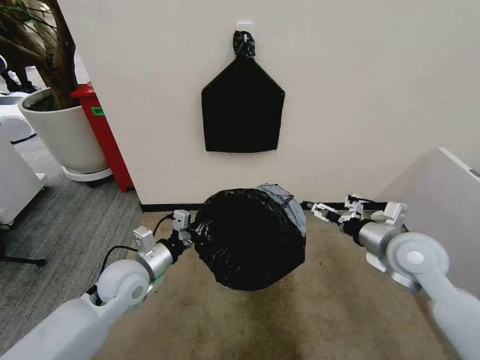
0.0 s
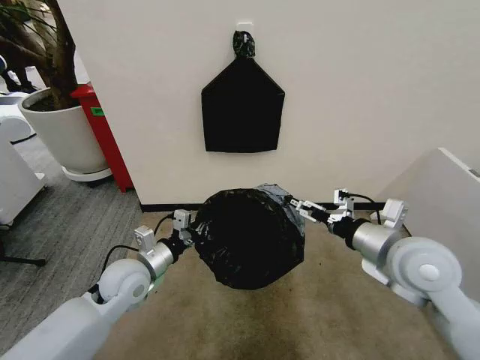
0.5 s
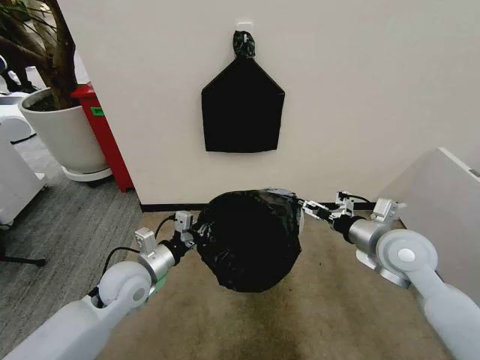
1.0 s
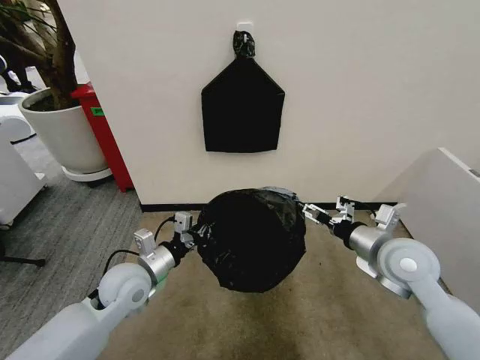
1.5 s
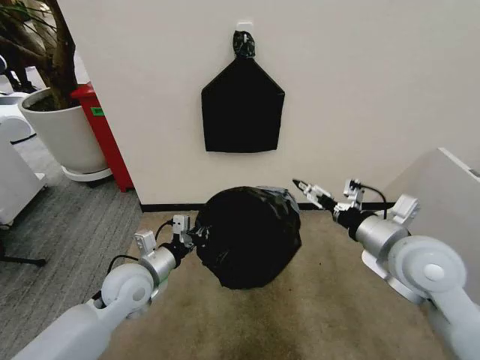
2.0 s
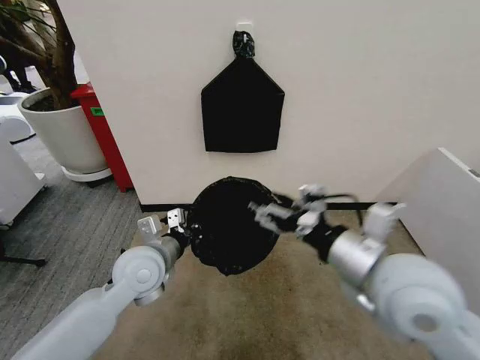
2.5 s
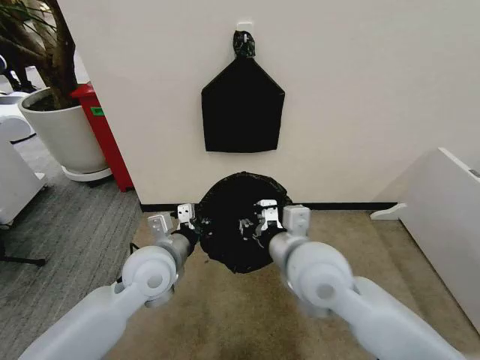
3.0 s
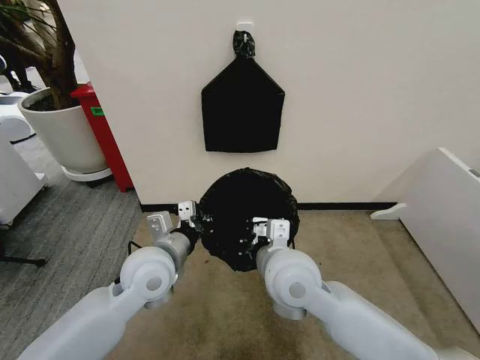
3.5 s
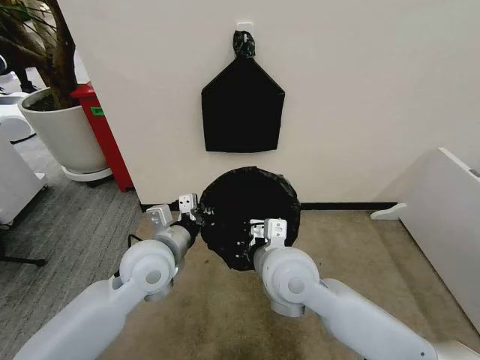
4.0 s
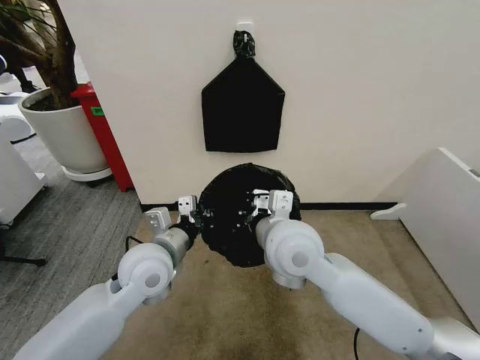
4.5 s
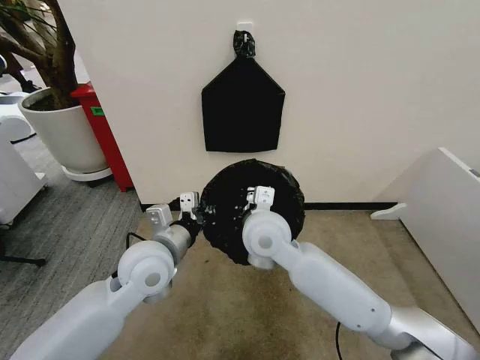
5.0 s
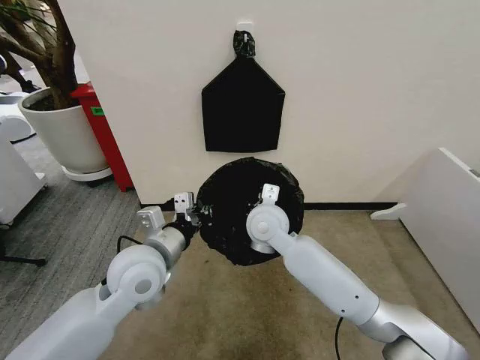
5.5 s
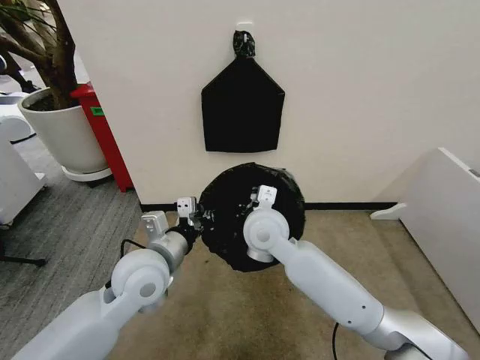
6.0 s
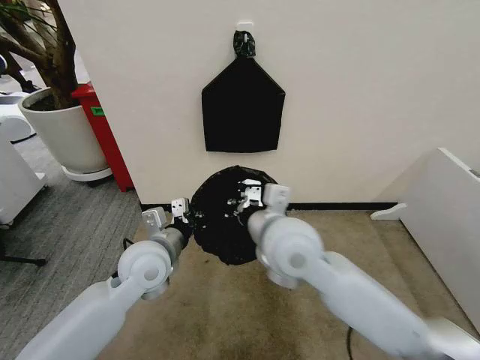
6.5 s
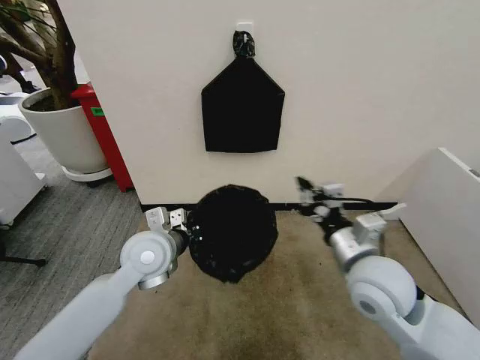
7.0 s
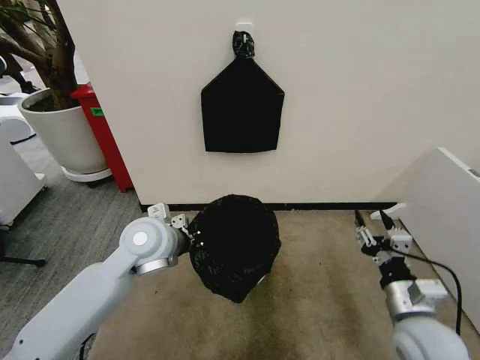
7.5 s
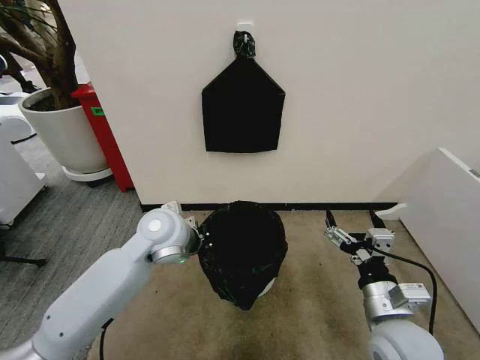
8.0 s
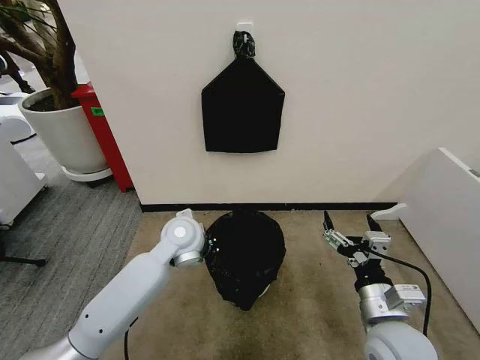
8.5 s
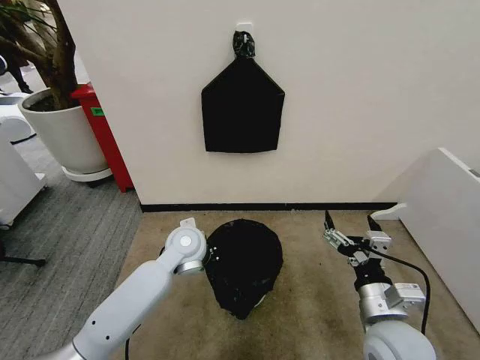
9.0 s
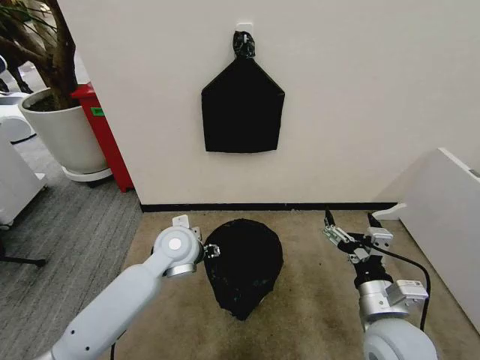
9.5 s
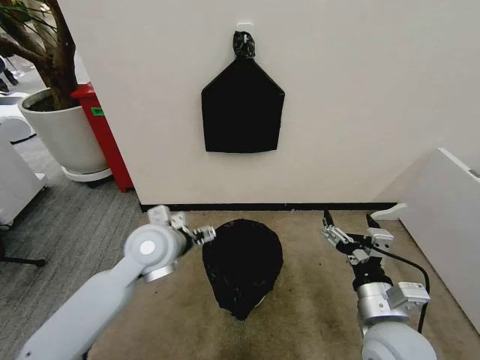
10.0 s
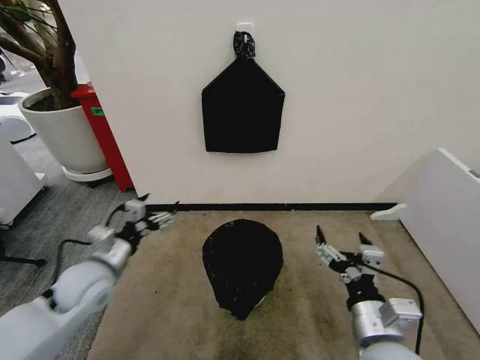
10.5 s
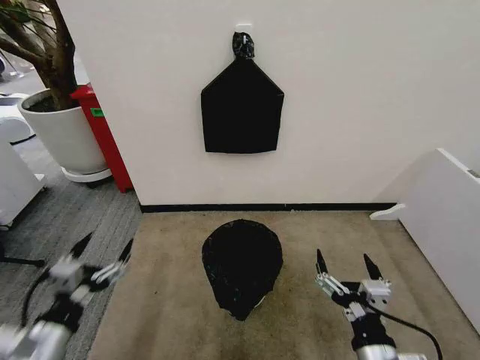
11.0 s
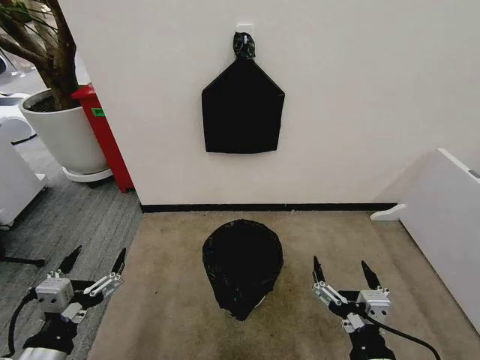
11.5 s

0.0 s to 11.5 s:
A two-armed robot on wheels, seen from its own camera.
Task of the whole recording: Place the garbage bag over the trash bin.
0.0 to 2.0 s: The right gripper goes up and down, approximately 5 cm each way, reversing 2 times.
2.0 to 4.0 s: The right gripper goes roughly 20 cm to the left, and closes up, while the left gripper travels upward and to the right by some 10 cm.
4.0 to 6.0 s: The right gripper moves forward, about 10 cm.
6.0 to 7.5 s: The right gripper is displaced to the right and backward by some 35 cm, and opens up. Meanwhile the left gripper shifts approximately 5 cm forward.
7.5 to 9.5 s: The right gripper moves to the left, approximately 5 cm, and opens its fingers, while the left gripper is displaced downward by roughly 5 cm, and opens up.
9.5 to 11.5 s: The right gripper goes roughly 10 cm backward. Meanwhile the left gripper goes roughly 35 cm backward and to the left.

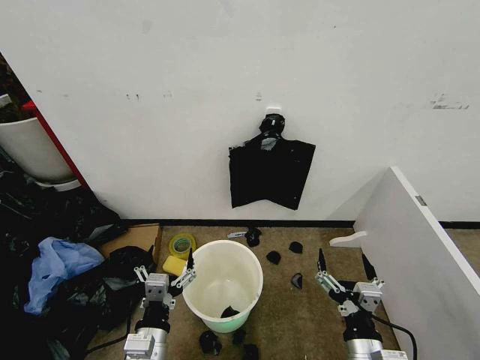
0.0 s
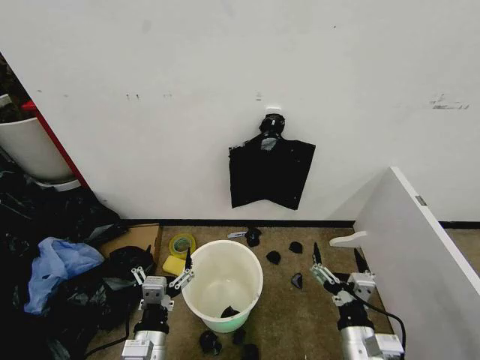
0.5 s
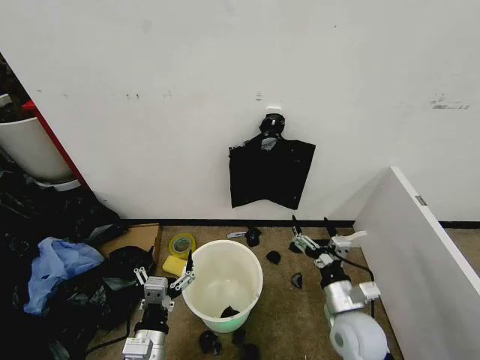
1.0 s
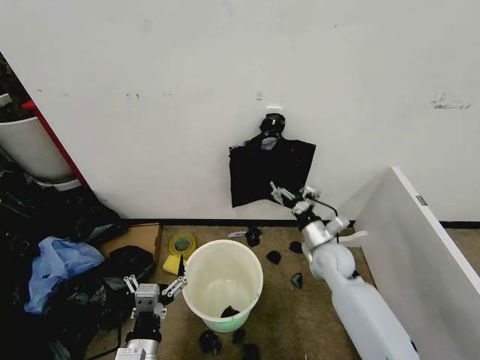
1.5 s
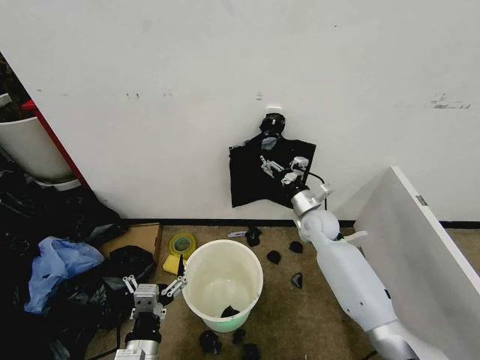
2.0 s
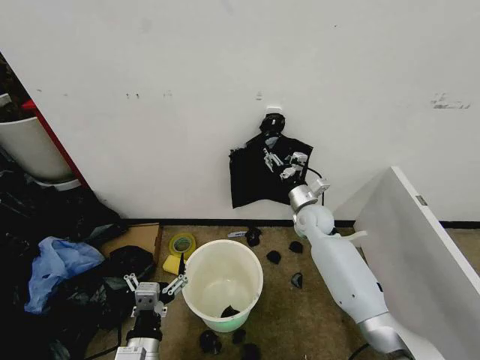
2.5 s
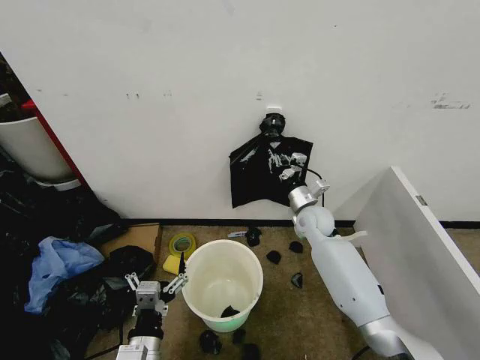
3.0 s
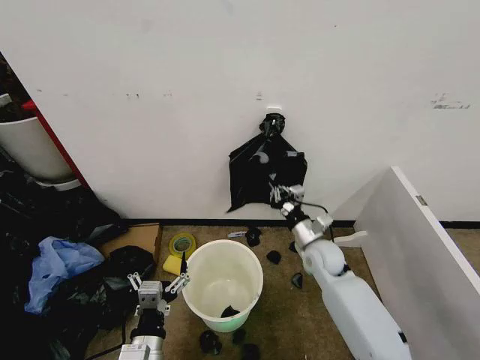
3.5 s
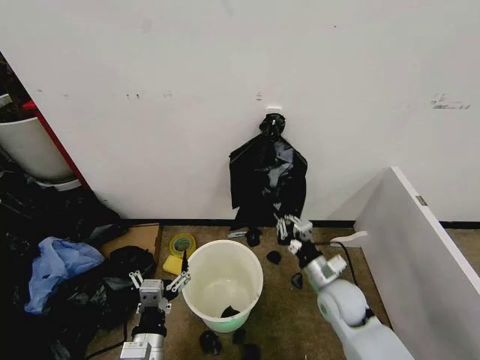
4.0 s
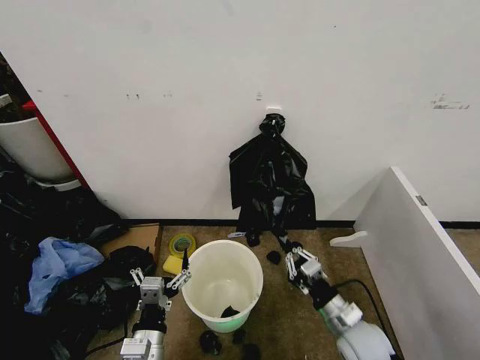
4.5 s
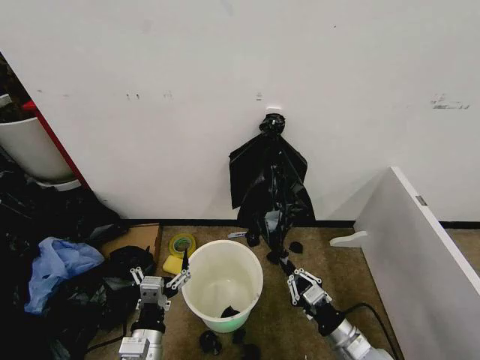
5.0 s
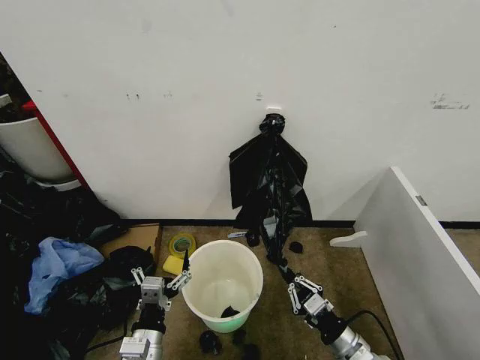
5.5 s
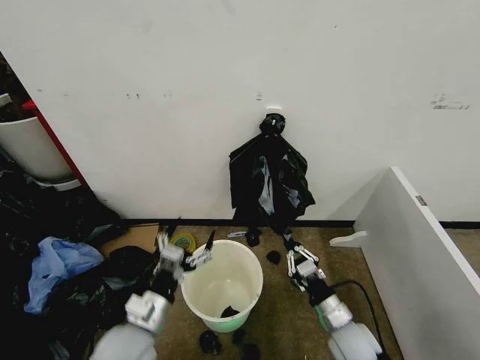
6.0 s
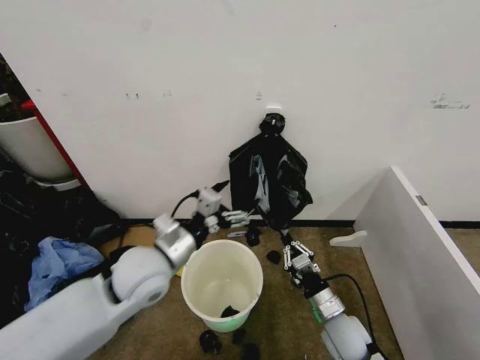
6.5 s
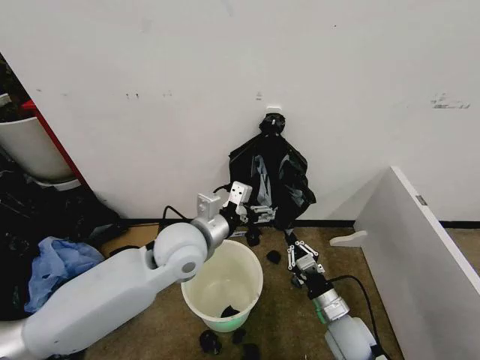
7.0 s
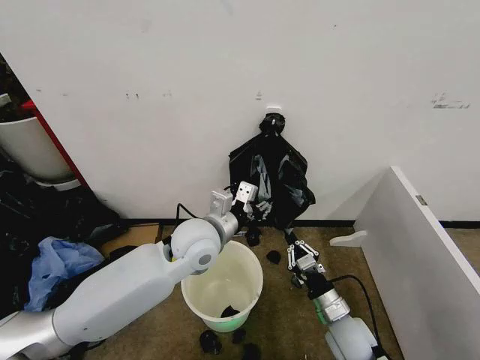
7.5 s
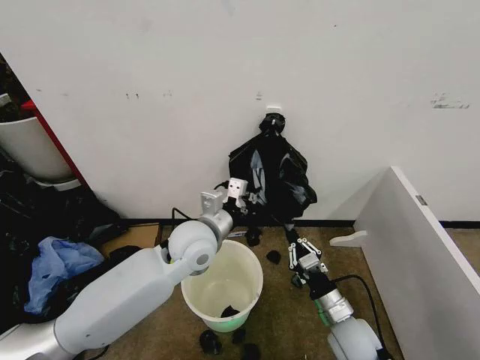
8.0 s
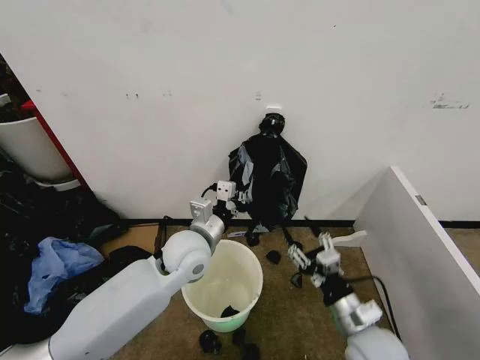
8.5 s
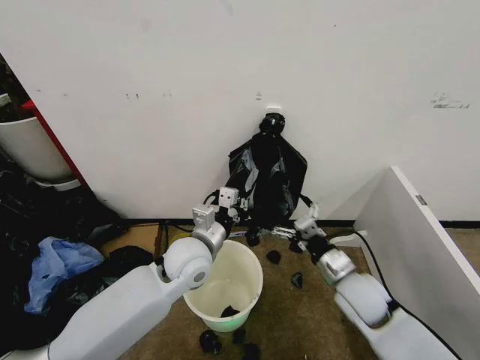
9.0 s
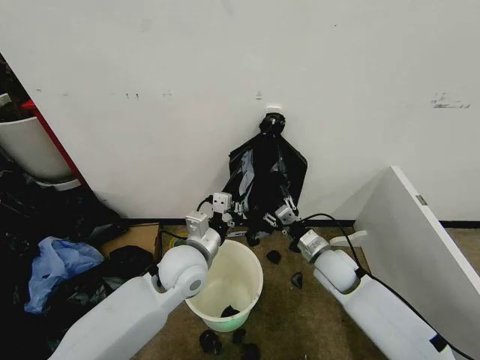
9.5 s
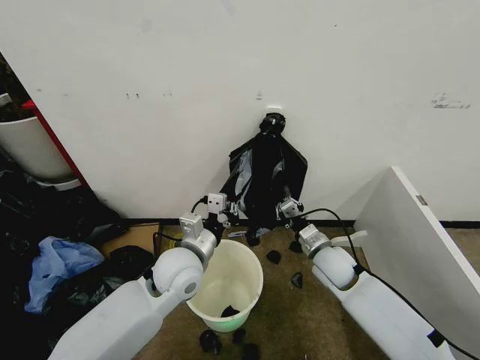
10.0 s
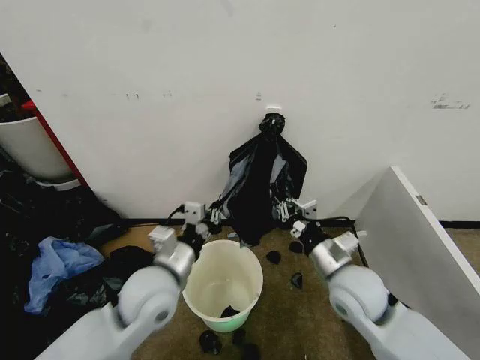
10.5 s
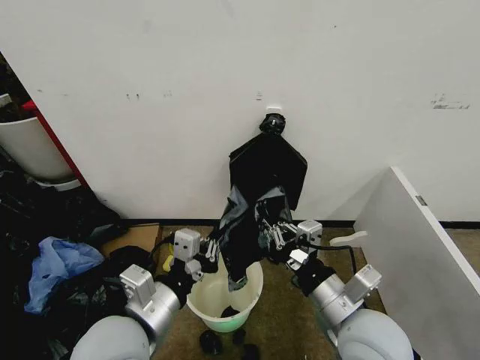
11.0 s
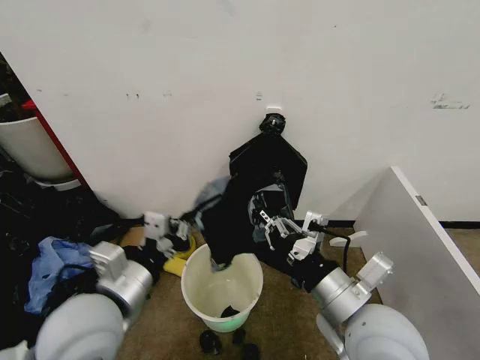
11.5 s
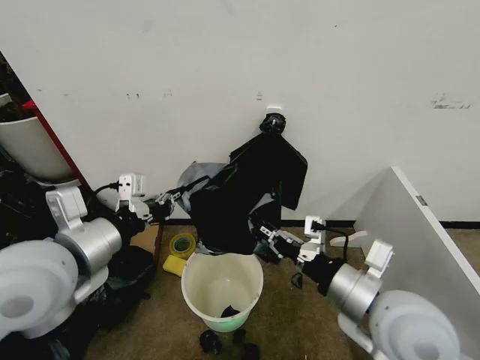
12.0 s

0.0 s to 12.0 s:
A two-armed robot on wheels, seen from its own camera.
Task of the whole recording: Place the garbage bag over the trash bin.
2.0 to 4.0 s: The right gripper is displaced backward by approximately 20 cm, and closes.
4.0 to 6.0 s: The right gripper is displaced backward by about 10 cm. The left gripper goes about 5 cm forward.
6.0 to 8.0 s: The left gripper shifts roughly 25 cm forward, upward and to the right, and closes up.
8.0 to 10.0 s: The left gripper ends up approximately 5 cm from where it was; the right gripper moves forward, roughly 15 cm, and opens, then closes once more.
10.0 to 12.0 s: The left gripper shifts approximately 25 cm upward, to the left and backward. Meanwhile the right gripper heads backward and upward, covering about 25 cm.

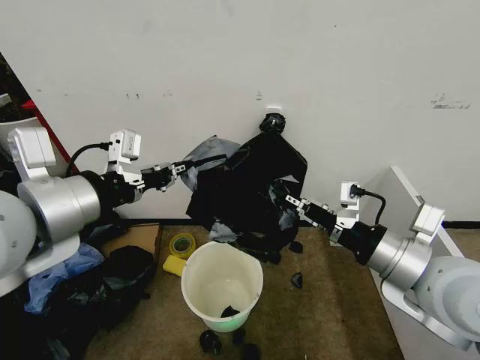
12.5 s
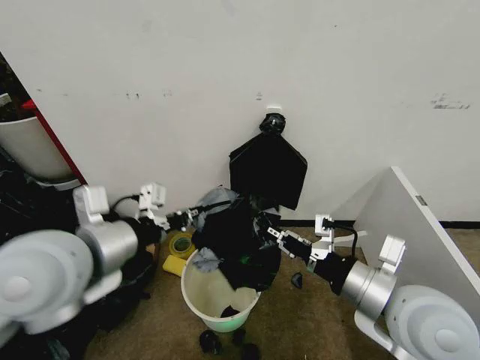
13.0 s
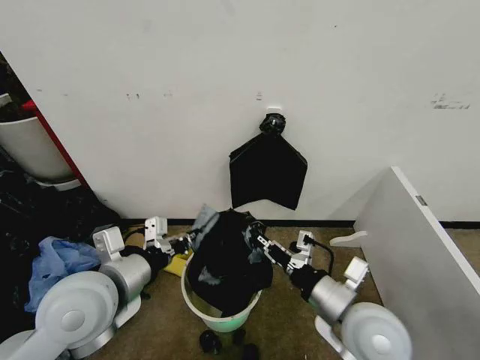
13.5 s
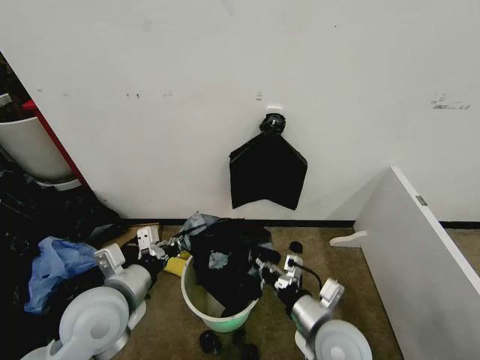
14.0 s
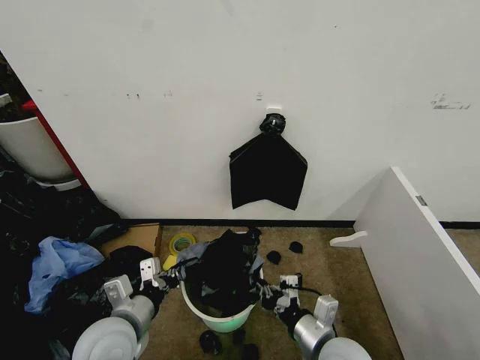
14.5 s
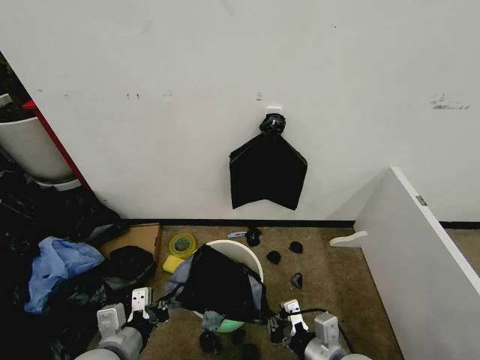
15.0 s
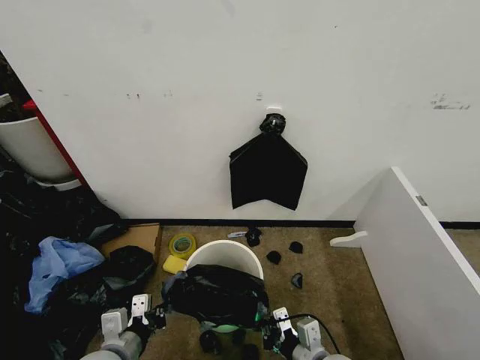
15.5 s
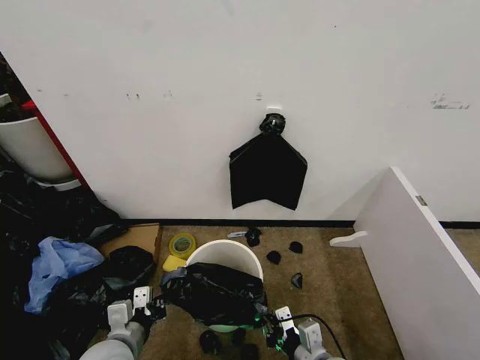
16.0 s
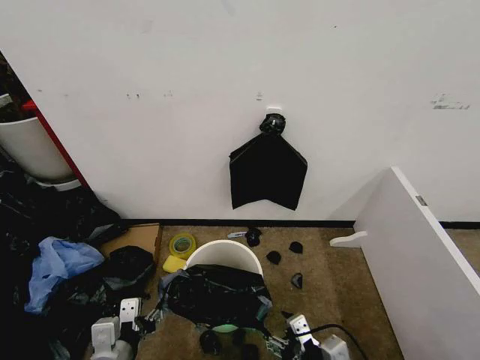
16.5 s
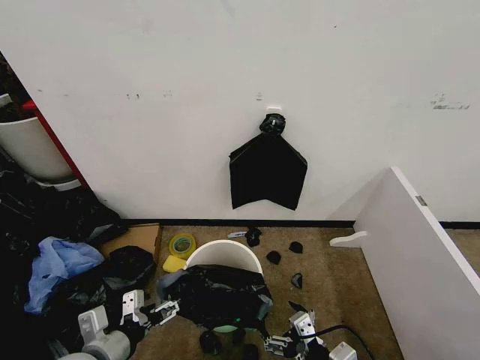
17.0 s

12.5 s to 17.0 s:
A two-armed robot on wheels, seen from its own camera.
Task of the whole recording: Place the garbage bag over the trash bin.
12.5 to 14.5 s: Both grippers move downward, approximately 25 cm.
14.5 to 17.0 s: The right gripper heads backward, covering some 10 cm, and opens its fingers, while the left gripper changes place by approximately 5 cm, and opens.
